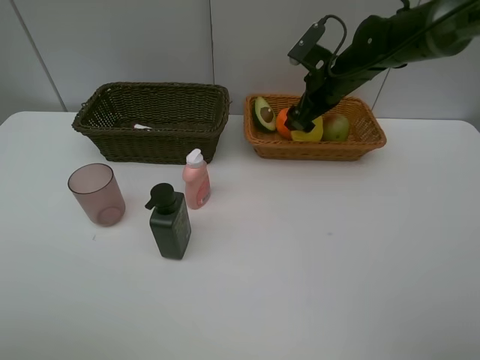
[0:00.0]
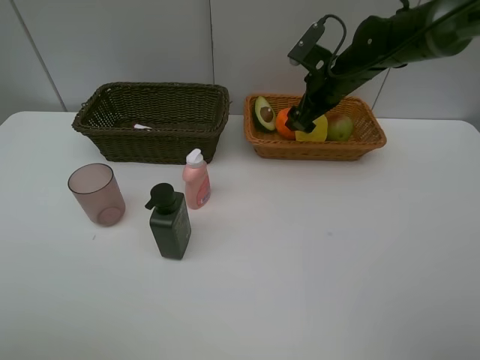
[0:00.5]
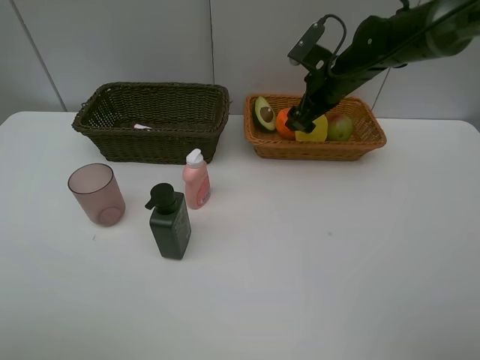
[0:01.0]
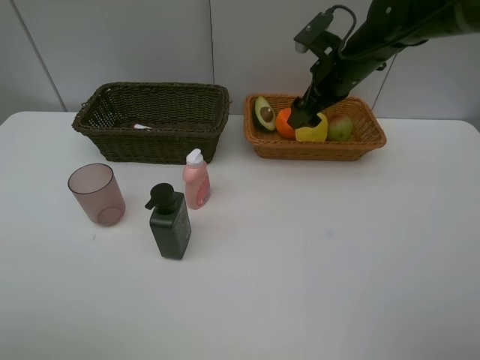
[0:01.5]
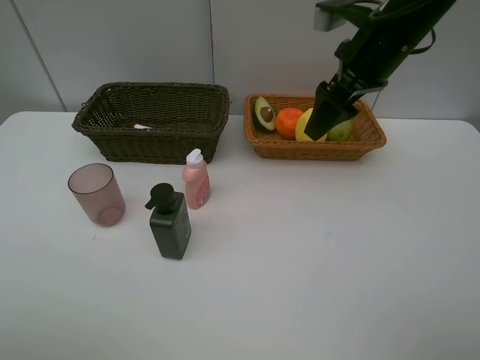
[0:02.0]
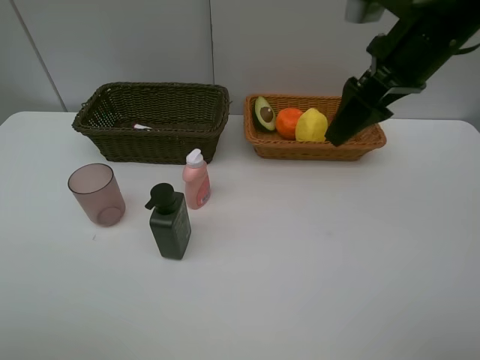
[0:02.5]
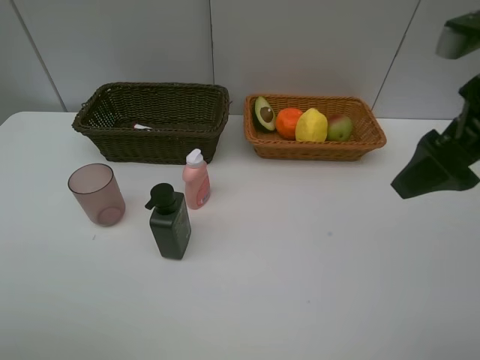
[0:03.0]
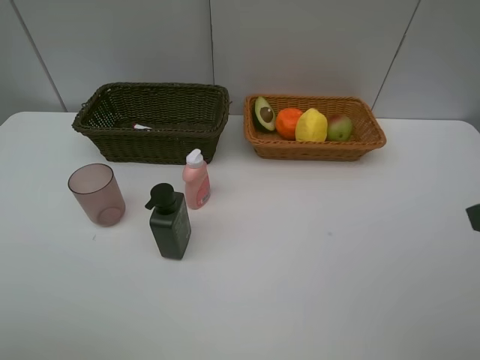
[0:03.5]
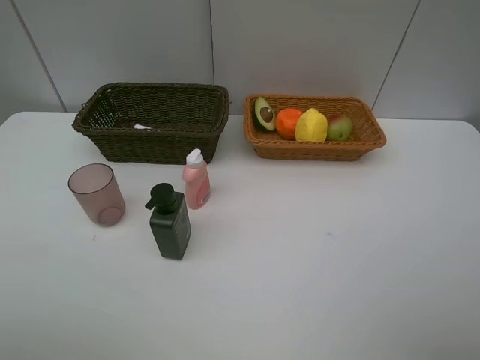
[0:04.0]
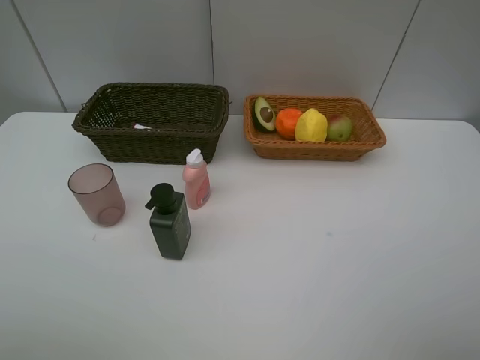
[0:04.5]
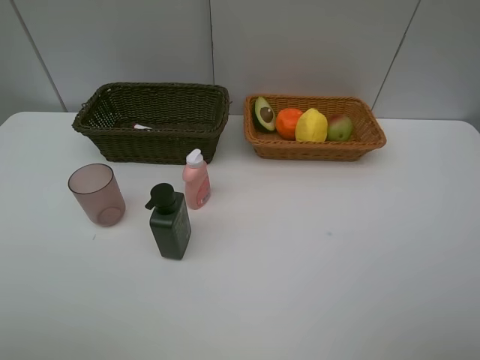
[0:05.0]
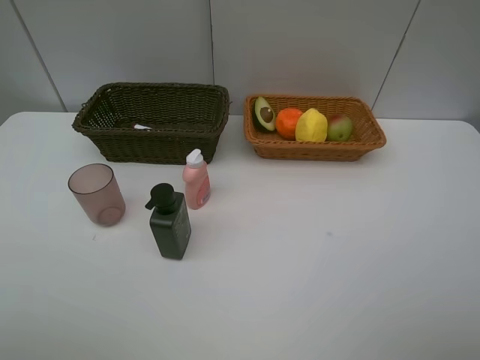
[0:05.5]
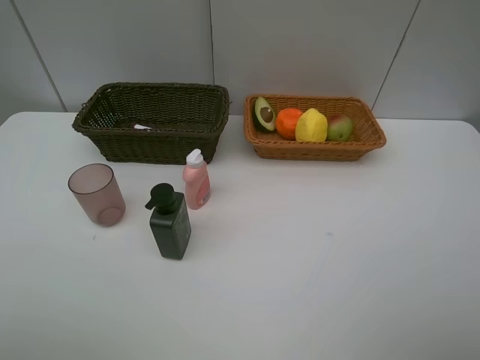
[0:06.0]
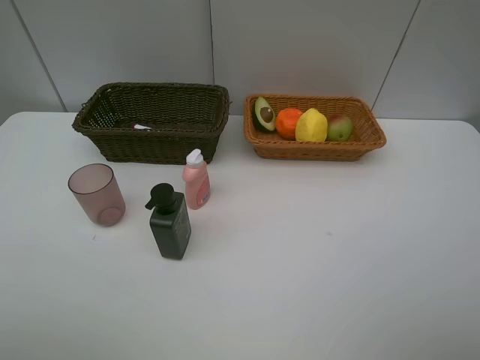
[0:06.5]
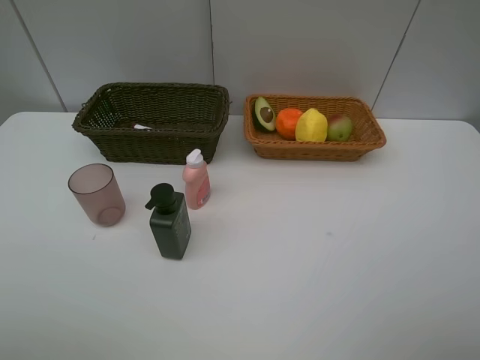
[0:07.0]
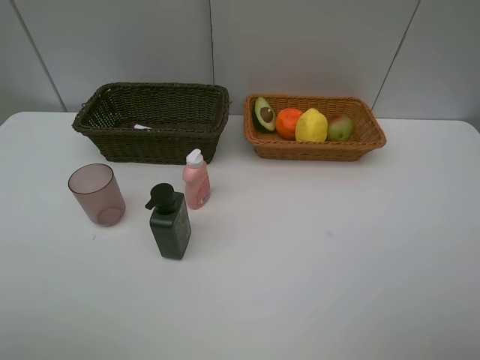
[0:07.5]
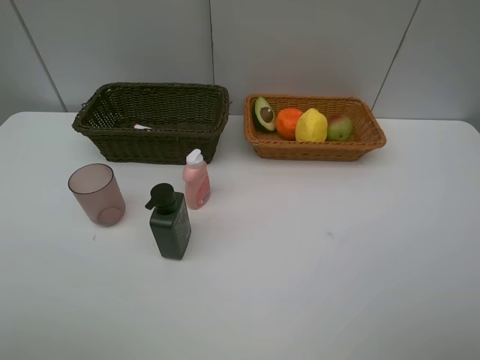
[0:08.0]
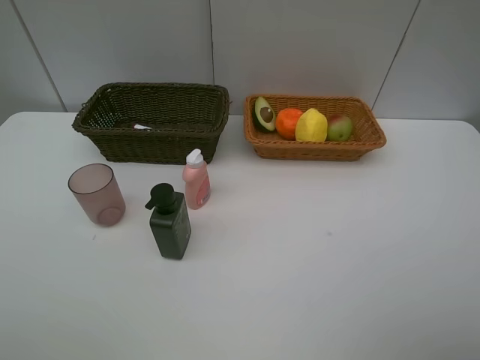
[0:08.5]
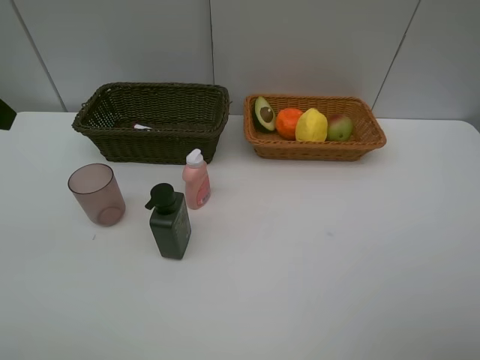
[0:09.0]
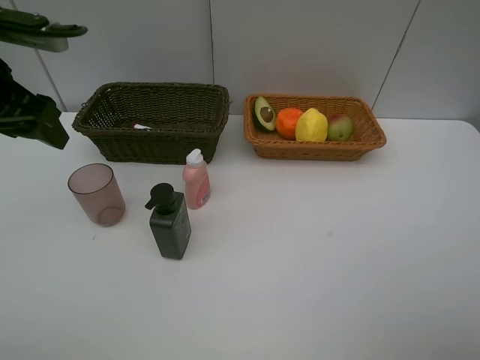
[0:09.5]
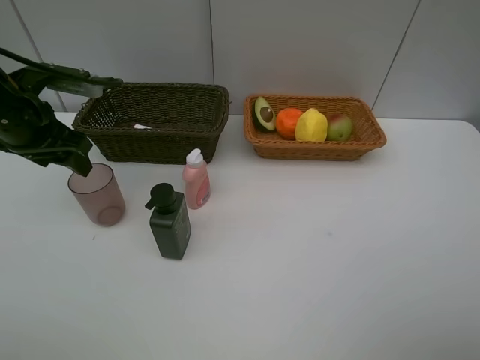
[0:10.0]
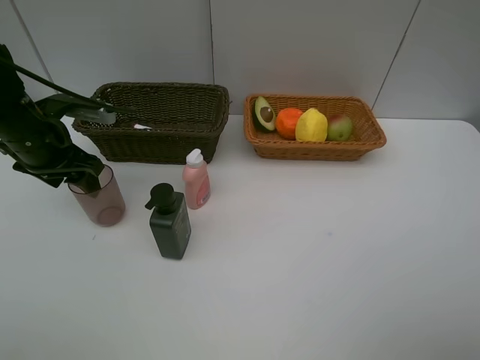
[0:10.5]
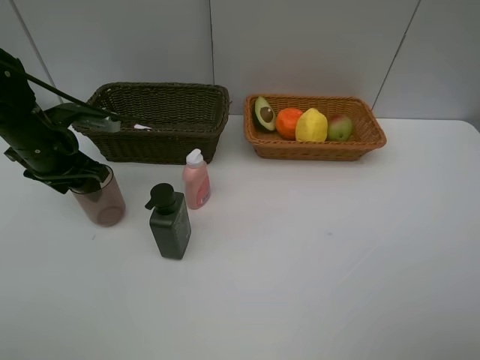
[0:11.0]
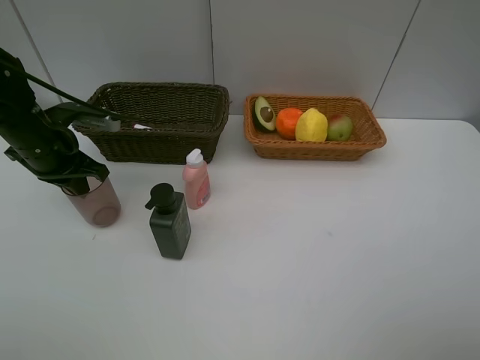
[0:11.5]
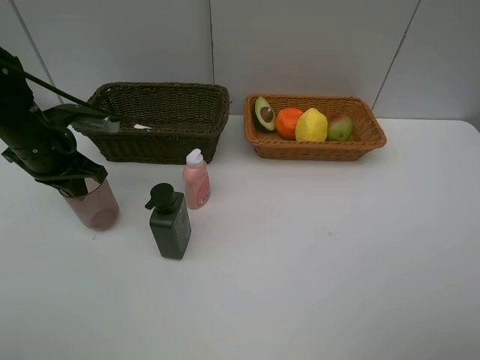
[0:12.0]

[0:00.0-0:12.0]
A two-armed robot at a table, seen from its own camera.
Task of the whole recording: Place multiple objects separately in different baskets.
0:00.0 to 0:02.0: The right gripper heads upward and backward, covering about 15 cm.
0:02.0 to 0:04.0: The right gripper travels backward and to the right by some 35 cm.
0:08.0 to 0:10.0: The left gripper goes roughly 30 cm forward.
0:10.0 to 0:12.0: The left gripper shifts about 5 cm downward, and closes.

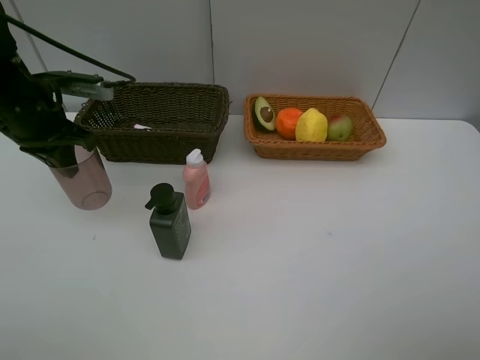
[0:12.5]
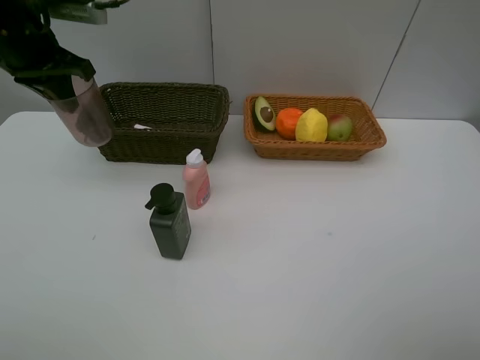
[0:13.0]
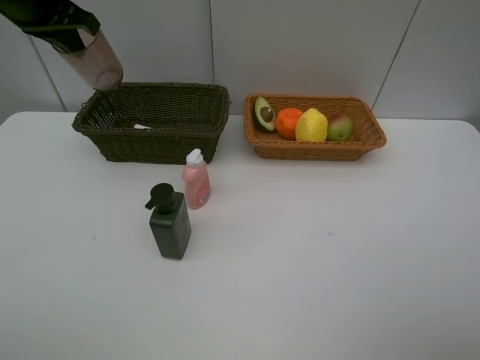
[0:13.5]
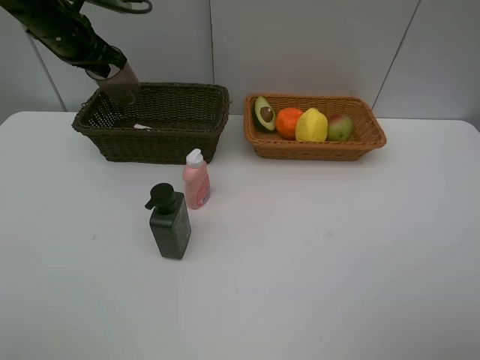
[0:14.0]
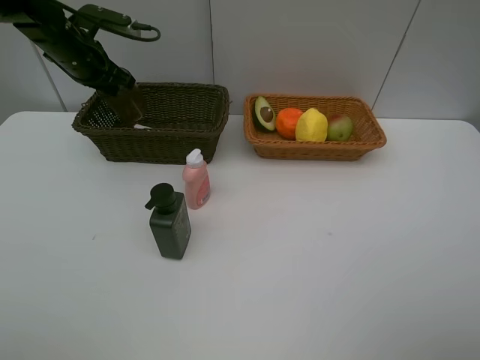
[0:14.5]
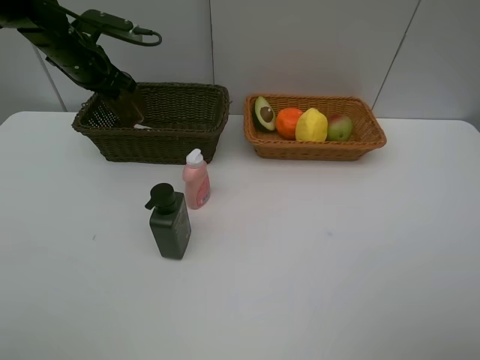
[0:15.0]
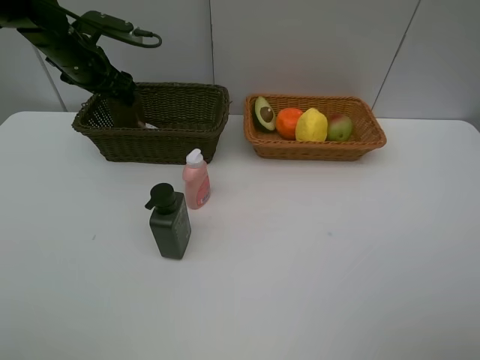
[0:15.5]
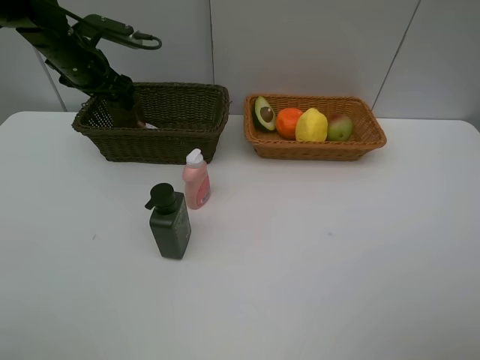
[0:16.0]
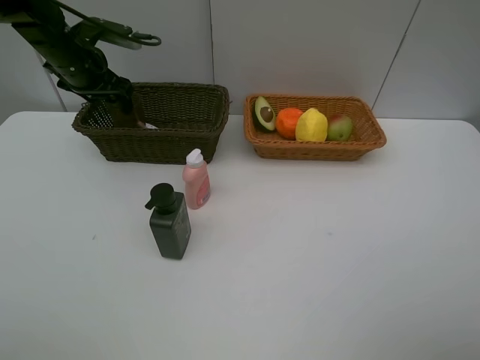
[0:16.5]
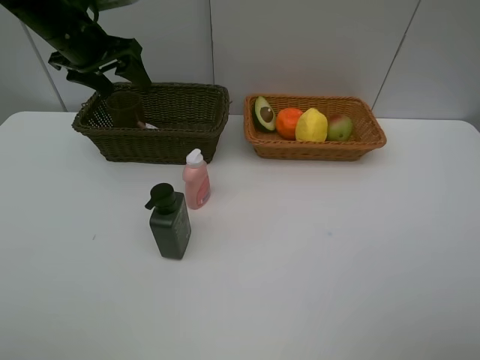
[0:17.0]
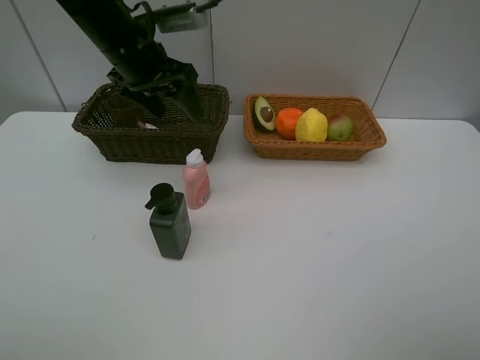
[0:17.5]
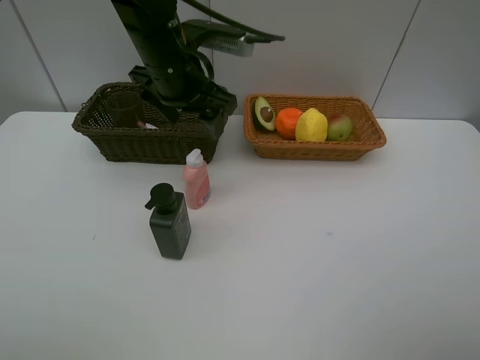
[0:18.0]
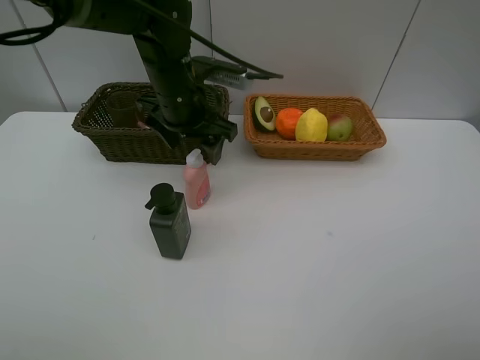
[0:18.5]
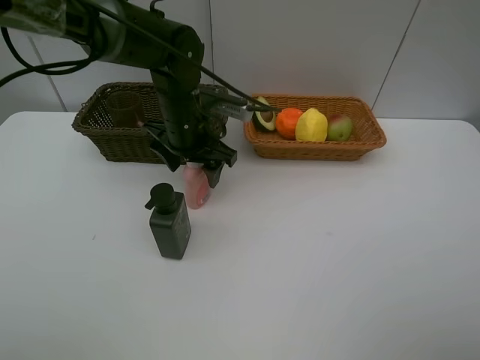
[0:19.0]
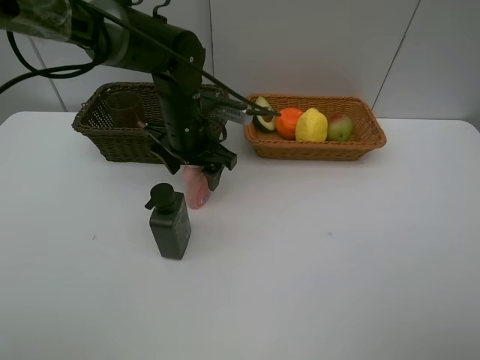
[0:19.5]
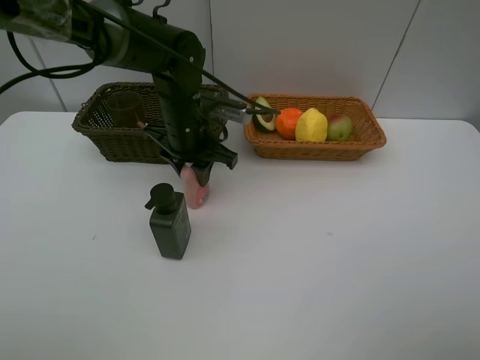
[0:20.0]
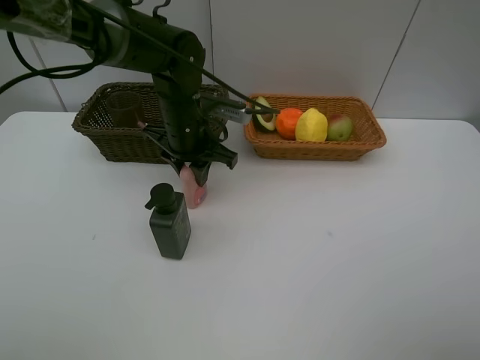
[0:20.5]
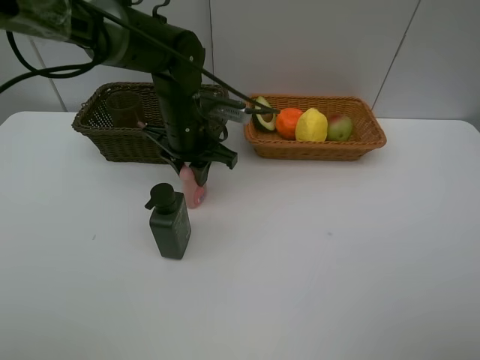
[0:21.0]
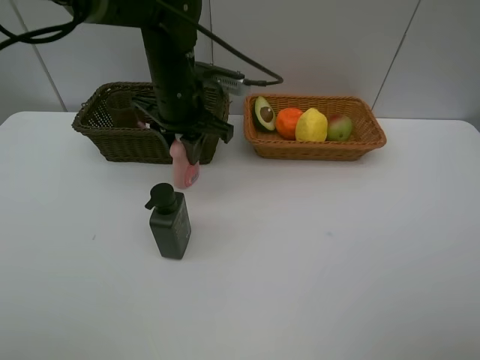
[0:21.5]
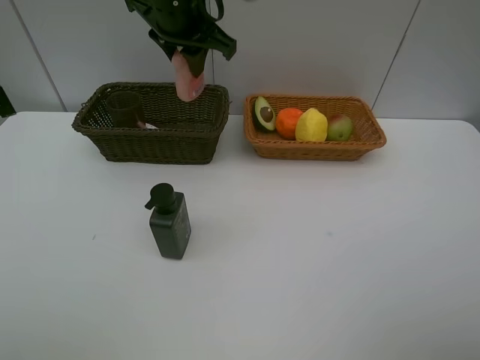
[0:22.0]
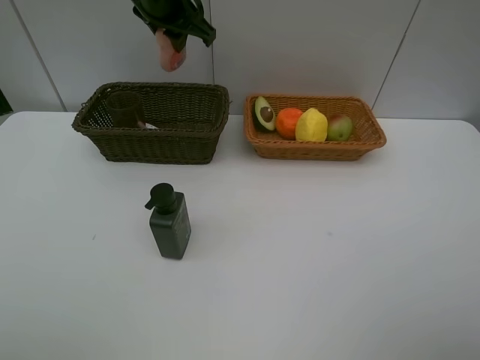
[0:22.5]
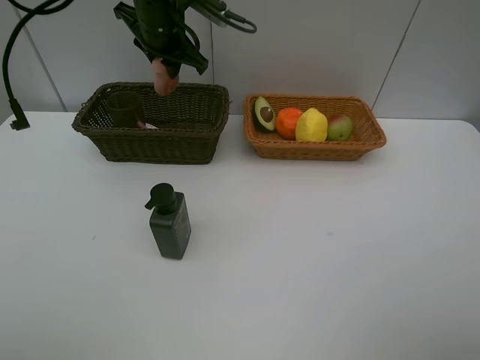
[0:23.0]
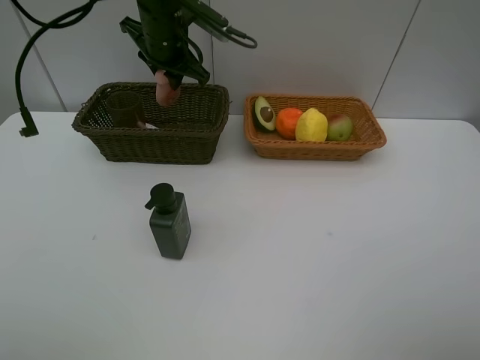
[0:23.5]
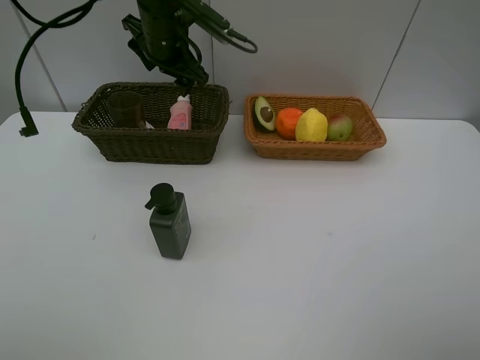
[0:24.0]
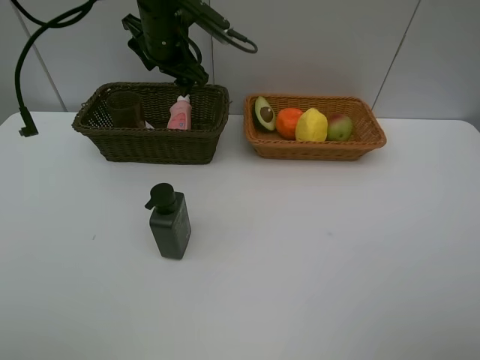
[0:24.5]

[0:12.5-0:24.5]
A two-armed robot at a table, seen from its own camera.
Task of the whole recording: Place multiple objects separately in different baskets.
Step, 0:12.5 to 0:17.0: Place the red cup in the dark basket with left gripper.
Step, 0:17.5 to 0:21.0: Pick up the laundry detergent with left gripper.
0:12.5 to 0:14.5: The left gripper is displaced forward by approximately 15 cm.
0:14.5 to 0:16.5: The left gripper opens up.
0:16.5 to 0:18.5: The left gripper goes roughly 20 cm to the right and backward.
0:18.5 to 0:20.5: The left gripper closes.
0:20.5 to 0:22.5: The left gripper is displaced upward and forward by about 15 cm.
0:22.5 to 0:24.5: The left gripper heads downward, covering roughly 5 cm, and opens.

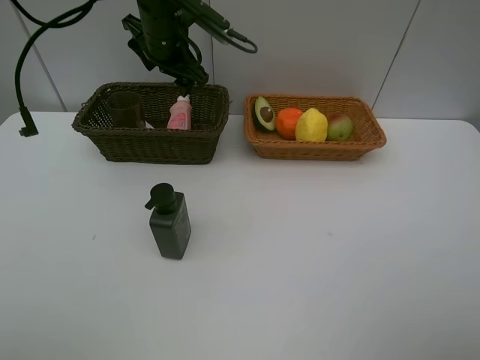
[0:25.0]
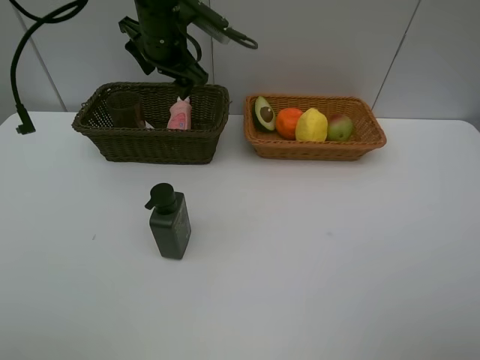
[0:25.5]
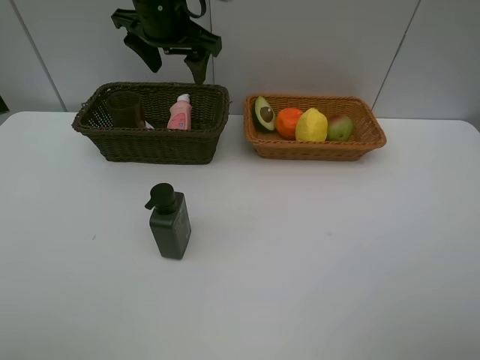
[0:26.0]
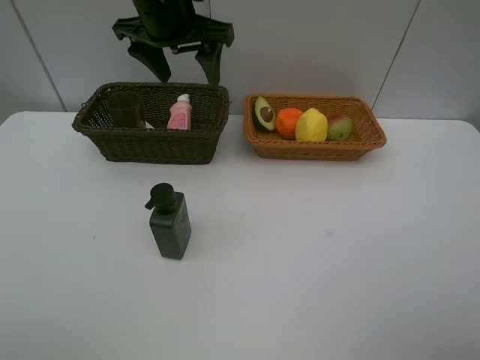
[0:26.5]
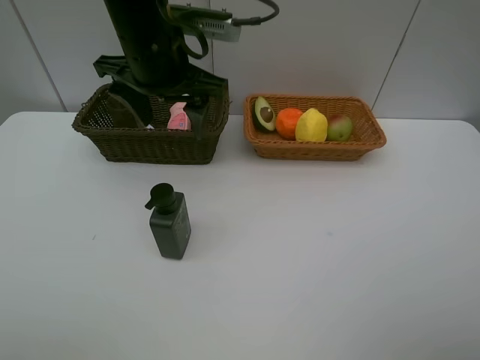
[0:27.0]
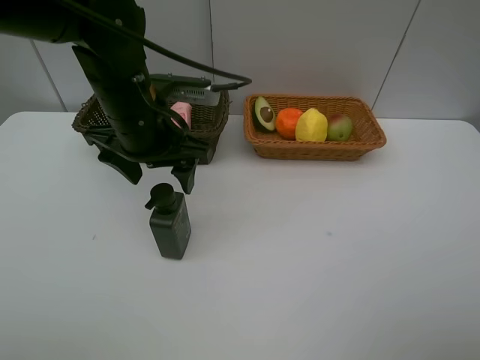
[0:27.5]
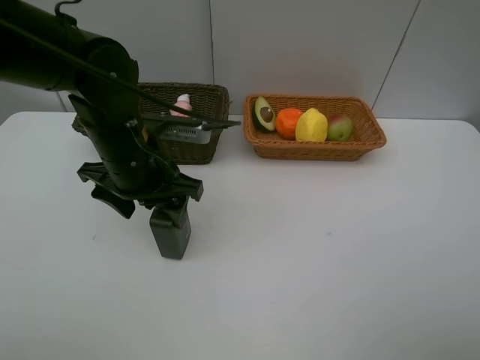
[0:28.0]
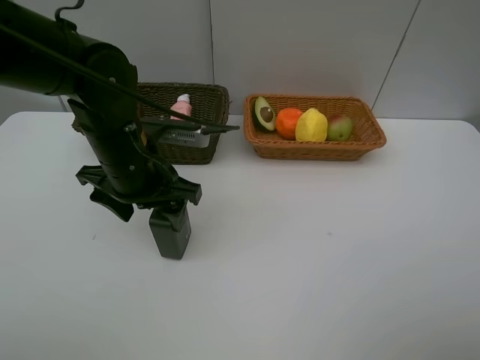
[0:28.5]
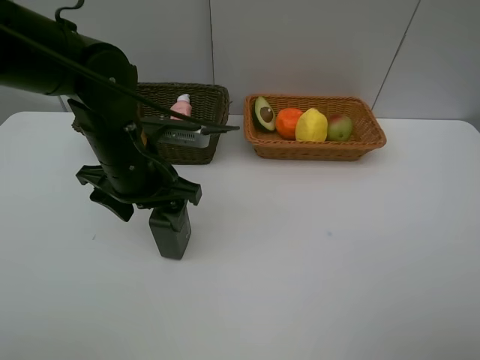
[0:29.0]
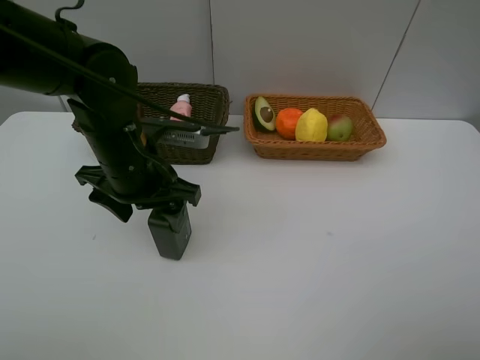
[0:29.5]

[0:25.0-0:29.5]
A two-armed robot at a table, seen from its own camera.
Task of the whole recording: Place multiple objects separately in different baskets.
0:25.0 to 0:27.0: The left gripper moves backward, about 15 cm.
0:27.0 to 0:29.5: The left gripper moves downward and backward, about 10 cm.
